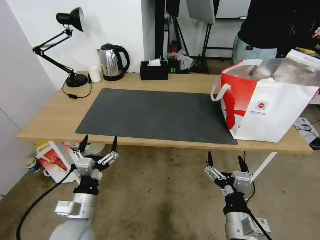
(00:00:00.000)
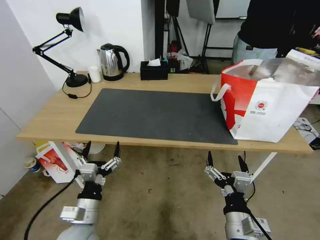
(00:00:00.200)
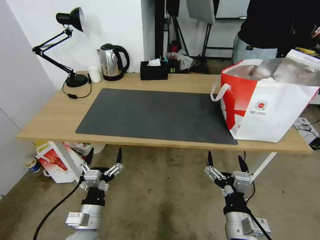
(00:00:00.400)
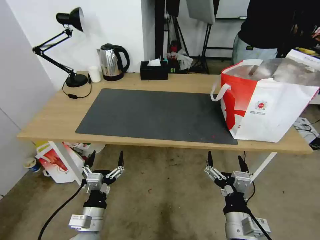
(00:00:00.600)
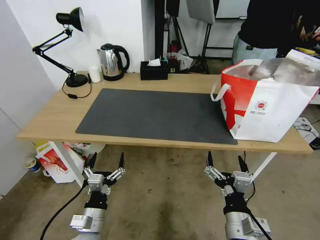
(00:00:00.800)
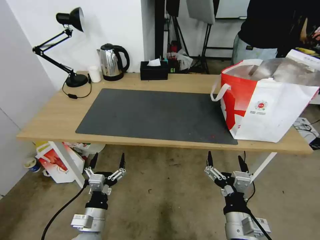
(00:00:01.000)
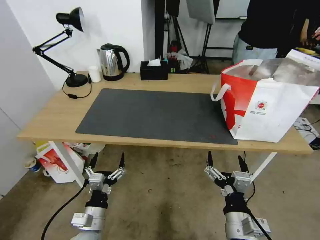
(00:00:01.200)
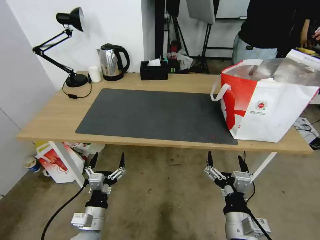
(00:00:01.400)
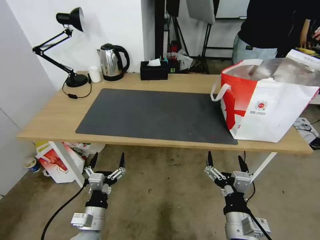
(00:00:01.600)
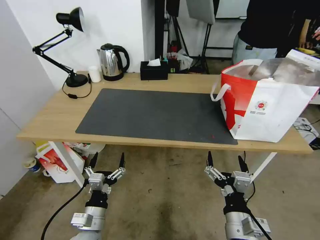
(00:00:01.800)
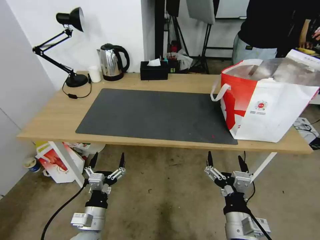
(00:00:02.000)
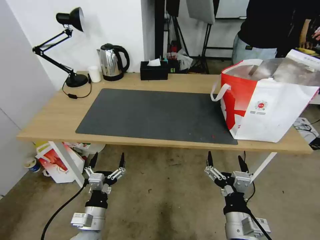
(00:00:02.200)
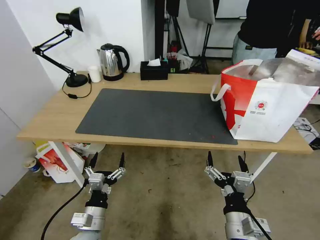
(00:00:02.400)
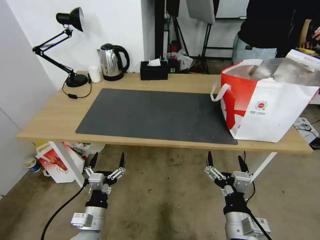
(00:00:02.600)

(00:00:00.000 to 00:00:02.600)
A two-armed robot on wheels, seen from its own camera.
Task of the whole recording: Pick up the trash from the table and place it into the takeout bag.
00:00:00.000 - 00:00:01.200: The left gripper is displaced downward by some 5 cm.
00:00:01.200 - 00:00:02.600: Neither gripper changes place.
